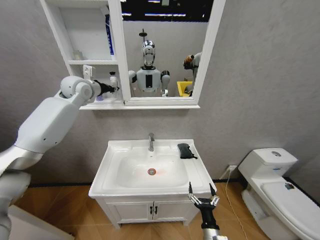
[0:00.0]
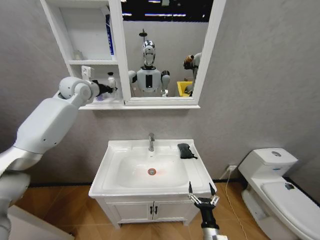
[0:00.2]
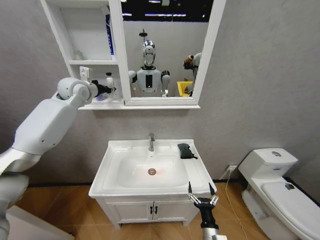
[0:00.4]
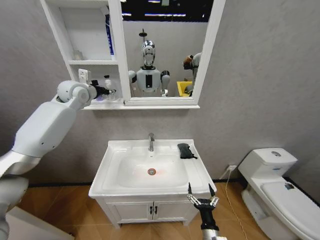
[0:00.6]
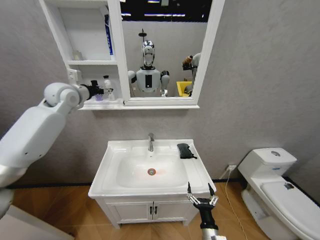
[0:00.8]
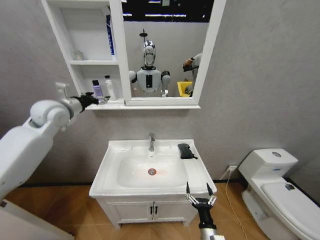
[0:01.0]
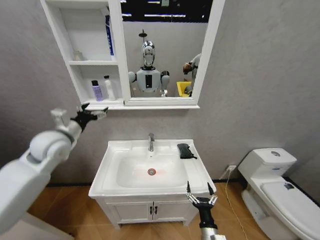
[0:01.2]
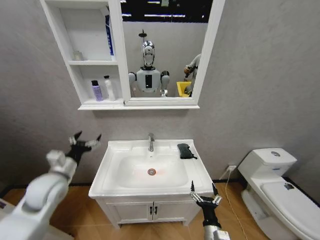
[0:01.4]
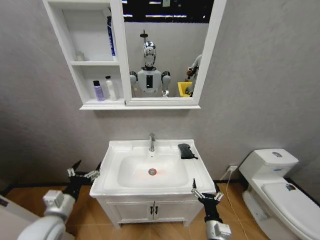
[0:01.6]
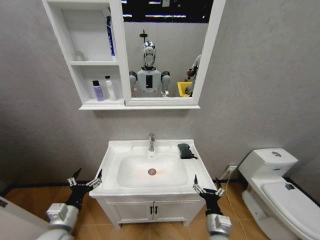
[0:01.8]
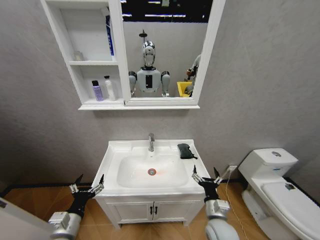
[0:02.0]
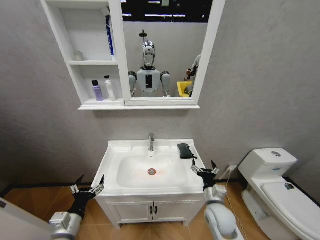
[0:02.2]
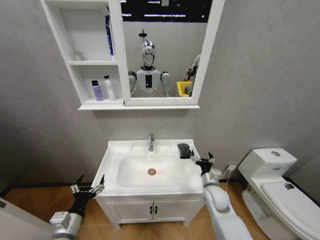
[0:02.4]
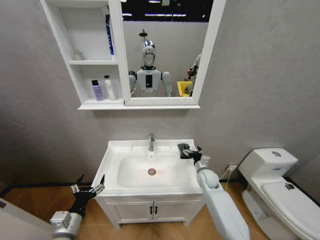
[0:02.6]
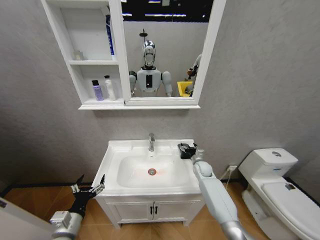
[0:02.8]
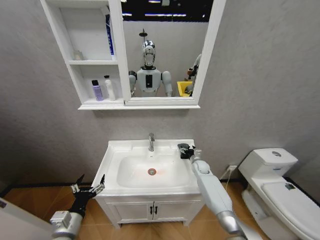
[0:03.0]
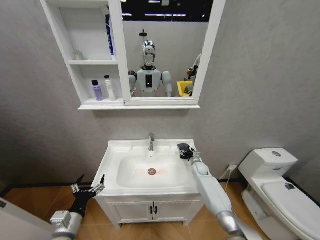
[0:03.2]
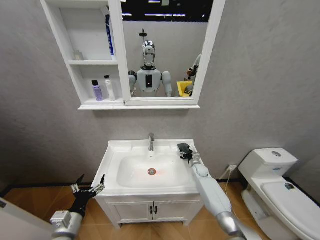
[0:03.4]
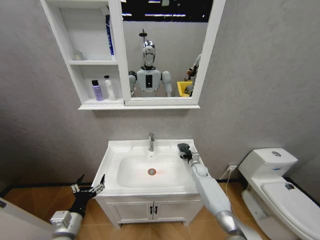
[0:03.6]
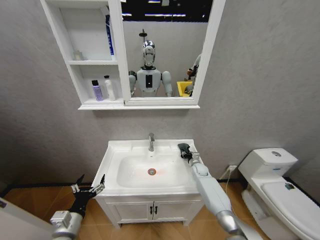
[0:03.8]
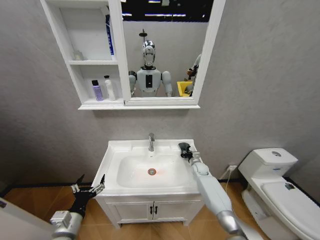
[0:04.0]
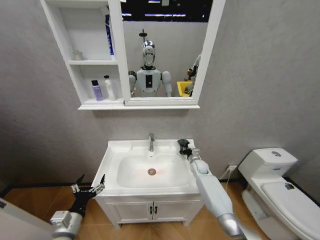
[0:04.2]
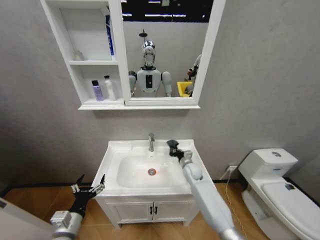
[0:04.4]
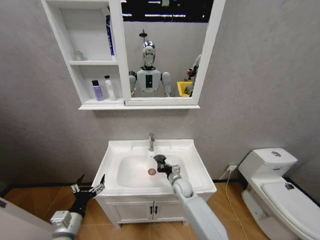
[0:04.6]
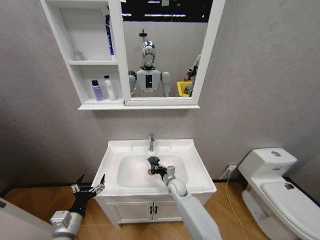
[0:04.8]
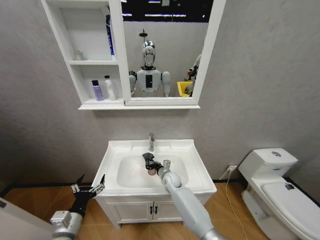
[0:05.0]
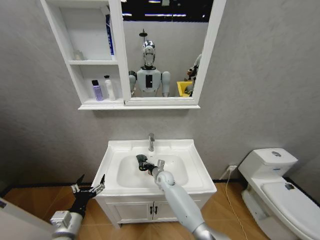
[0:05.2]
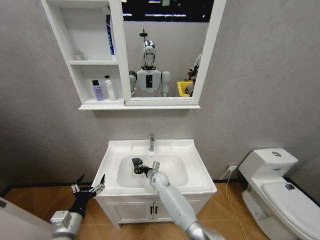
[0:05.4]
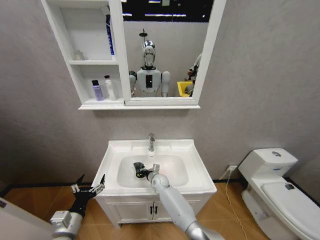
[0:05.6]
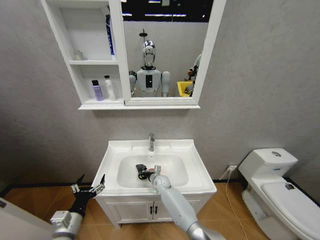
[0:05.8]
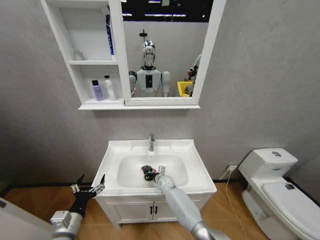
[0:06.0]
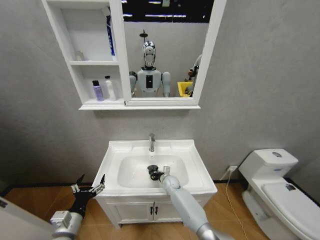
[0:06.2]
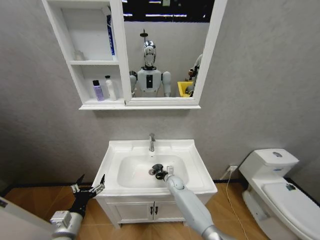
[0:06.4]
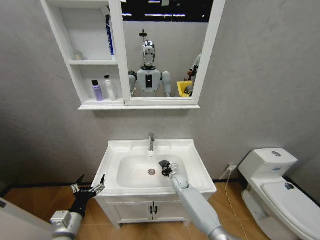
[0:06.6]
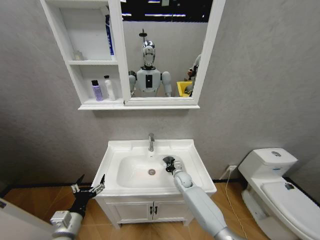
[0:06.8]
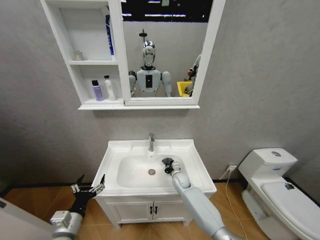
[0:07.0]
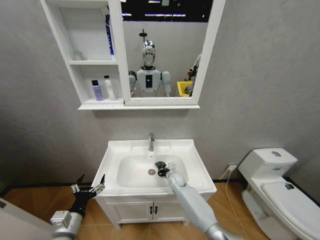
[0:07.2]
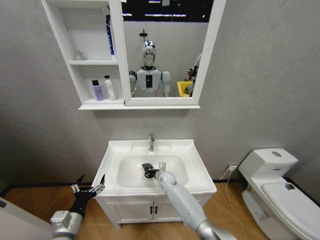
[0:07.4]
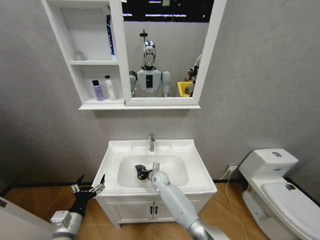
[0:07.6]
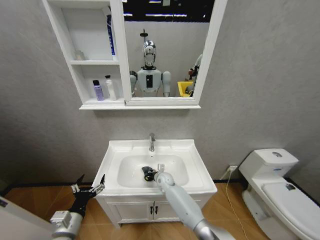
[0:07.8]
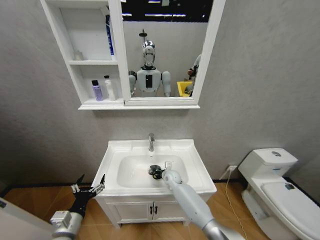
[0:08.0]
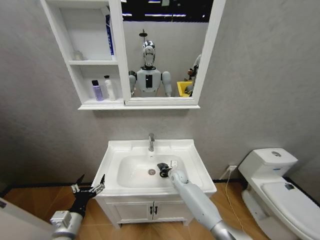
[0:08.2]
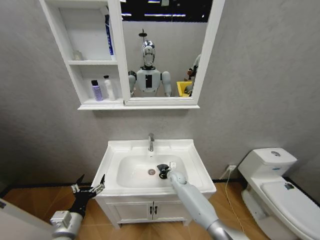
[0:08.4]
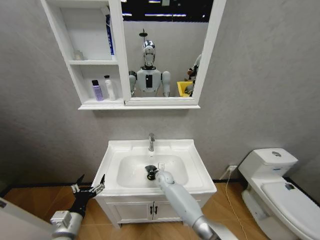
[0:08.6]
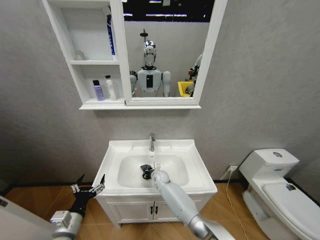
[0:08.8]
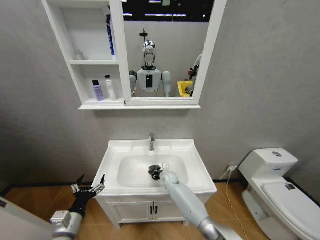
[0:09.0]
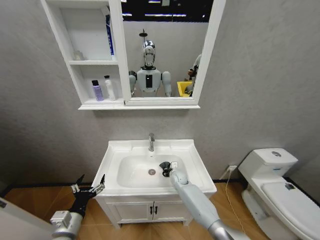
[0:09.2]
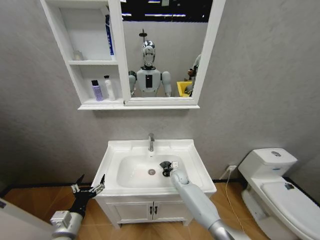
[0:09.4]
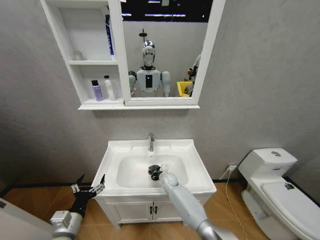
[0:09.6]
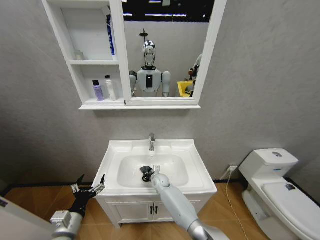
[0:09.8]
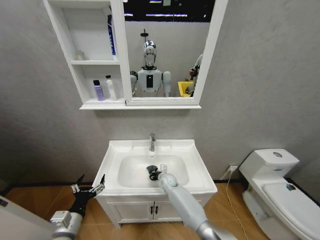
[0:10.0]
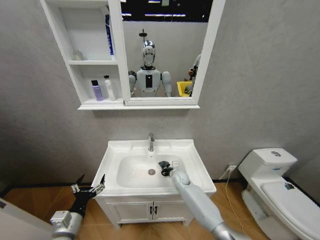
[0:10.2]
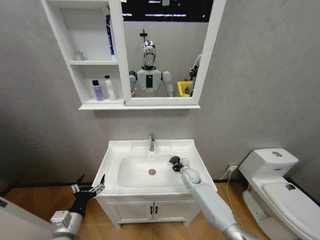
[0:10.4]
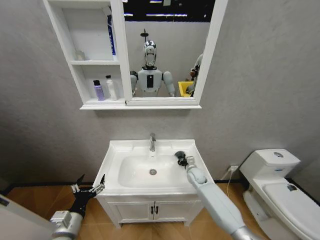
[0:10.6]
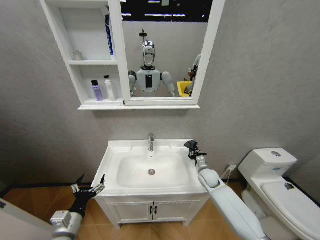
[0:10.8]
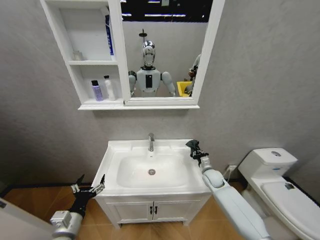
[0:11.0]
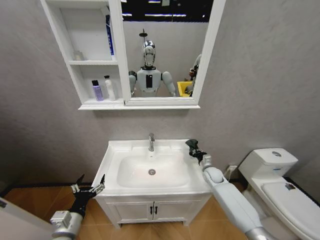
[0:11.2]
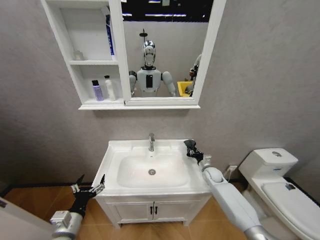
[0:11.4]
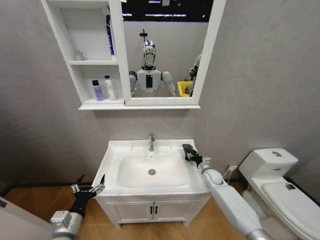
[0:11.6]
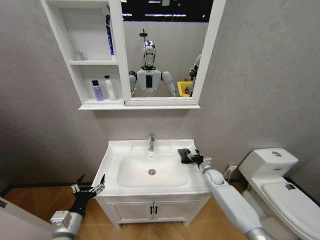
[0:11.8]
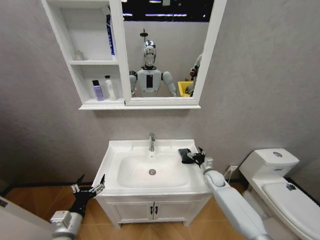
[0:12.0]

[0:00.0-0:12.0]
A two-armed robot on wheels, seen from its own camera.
Task of the whole recording: Move facial cleanser and shampoo from washbasin to cabinet, then wipe washbasin with towel.
0:00.0 to 0:01.6: The left gripper moves downward and backward, some 50 cm, and opens up.
0:01.6 to 0:03.0: The right gripper travels forward by roughly 35 cm. The left gripper shifts about 10 cm downward and backward.
0:03.0 to 0:04.4: The right gripper is displaced to the left and backward by about 10 cm, and closes.
0:04.4 to 0:06.0: The right gripper goes some 15 cm to the left and downward.
0:06.0 to 0:07.6: The right gripper travels to the right and back again, about 10 cm each way.
0:07.6 to 0:09.0: The right gripper moves left and right over approximately 10 cm, changing direction 2 times.
0:09.0 to 0:10.4: The right gripper goes left and right, approximately 15 cm each way, reversing 2 times.
0:10.4 to 0:12.0: The right gripper is displaced to the right by about 15 cm, and opens its fingers.

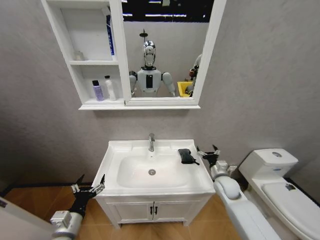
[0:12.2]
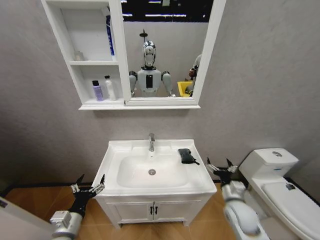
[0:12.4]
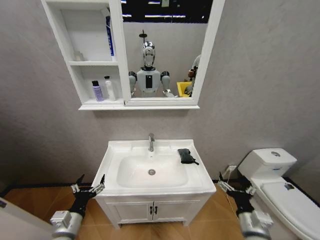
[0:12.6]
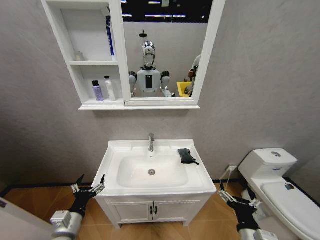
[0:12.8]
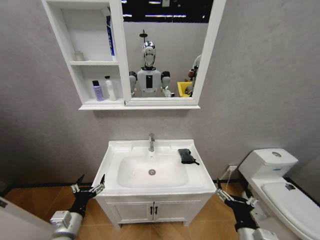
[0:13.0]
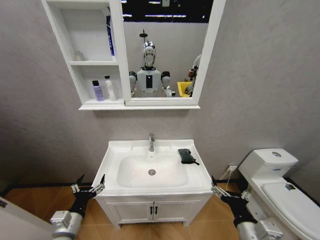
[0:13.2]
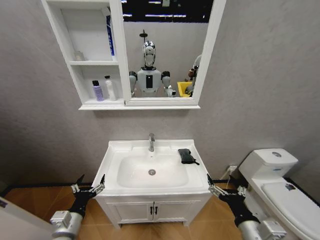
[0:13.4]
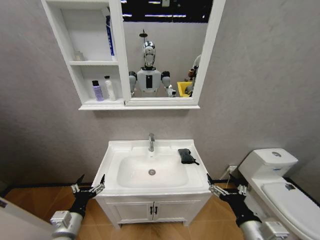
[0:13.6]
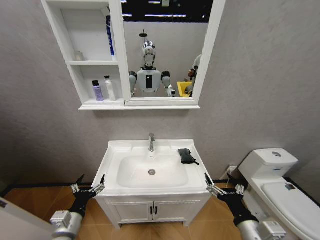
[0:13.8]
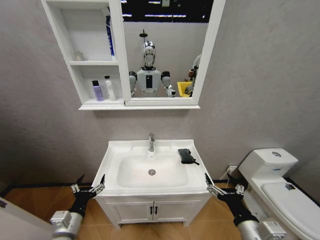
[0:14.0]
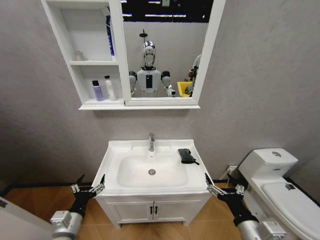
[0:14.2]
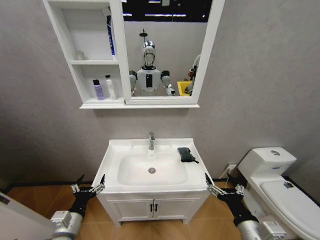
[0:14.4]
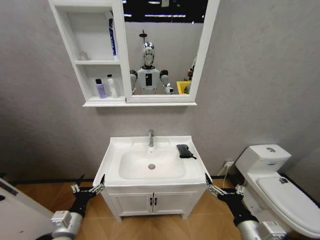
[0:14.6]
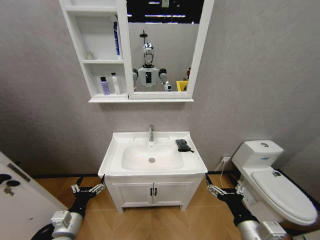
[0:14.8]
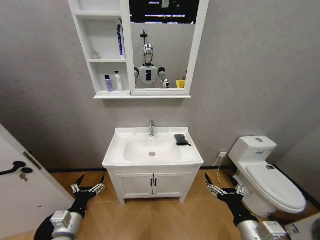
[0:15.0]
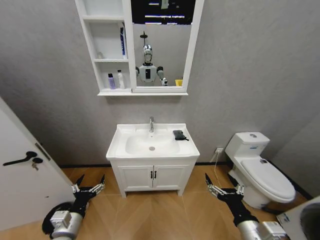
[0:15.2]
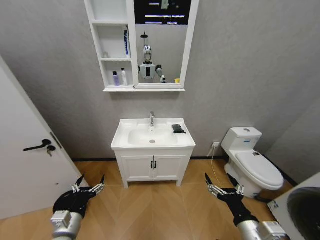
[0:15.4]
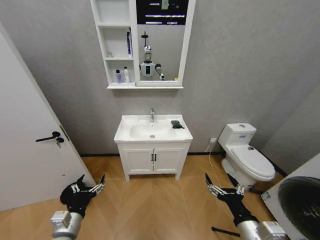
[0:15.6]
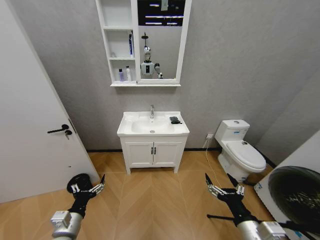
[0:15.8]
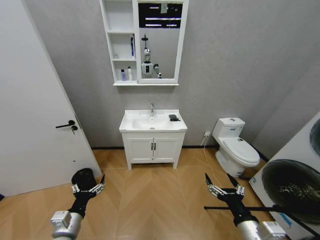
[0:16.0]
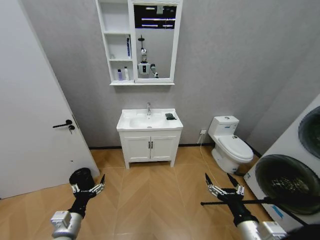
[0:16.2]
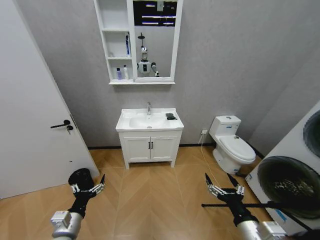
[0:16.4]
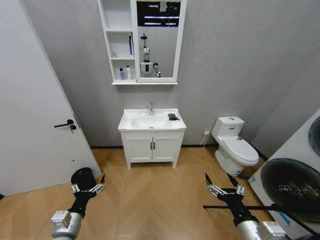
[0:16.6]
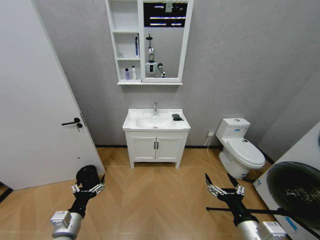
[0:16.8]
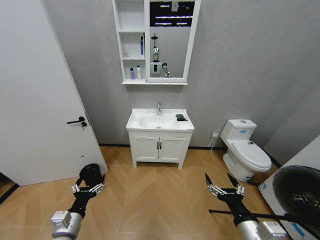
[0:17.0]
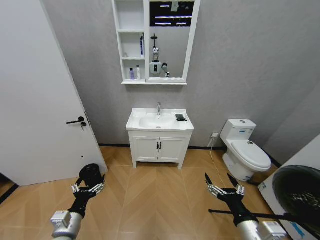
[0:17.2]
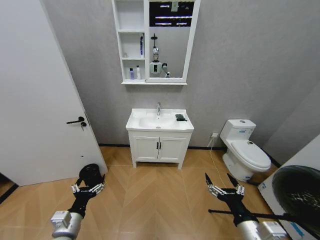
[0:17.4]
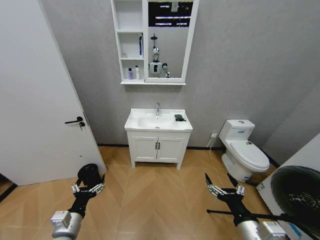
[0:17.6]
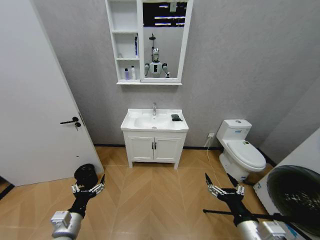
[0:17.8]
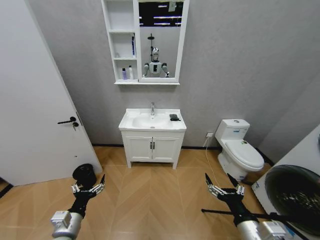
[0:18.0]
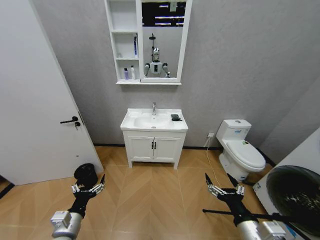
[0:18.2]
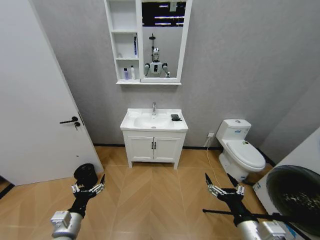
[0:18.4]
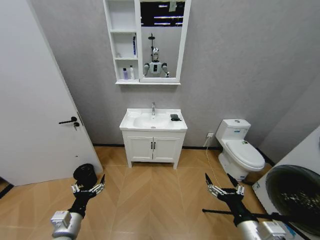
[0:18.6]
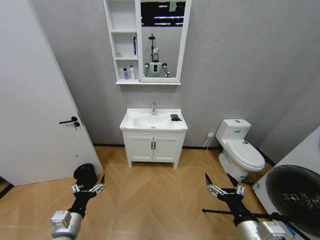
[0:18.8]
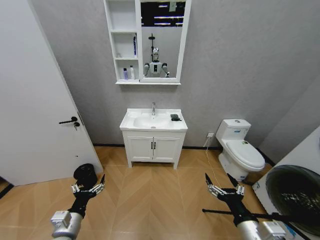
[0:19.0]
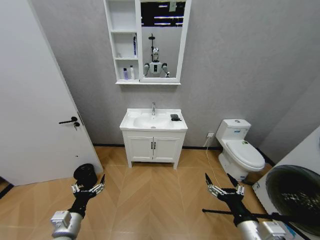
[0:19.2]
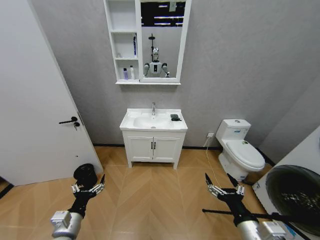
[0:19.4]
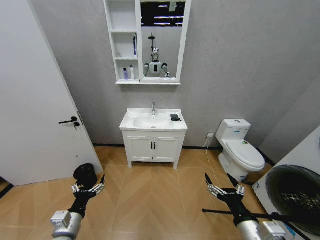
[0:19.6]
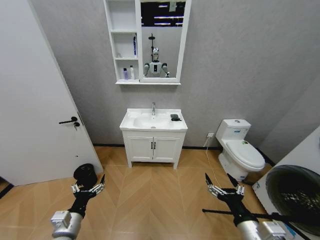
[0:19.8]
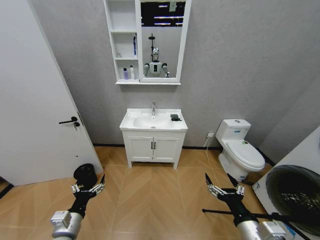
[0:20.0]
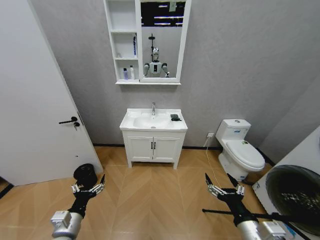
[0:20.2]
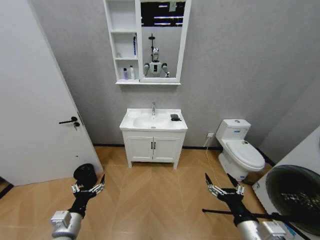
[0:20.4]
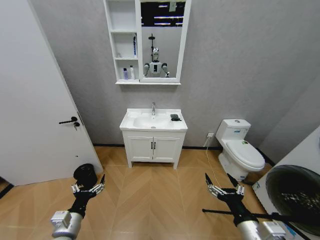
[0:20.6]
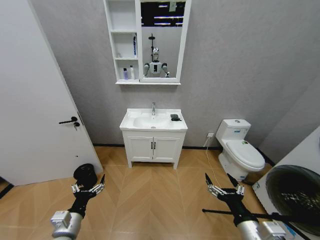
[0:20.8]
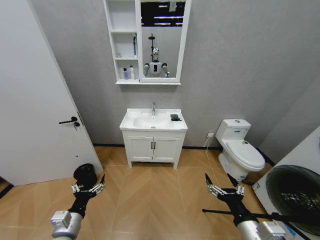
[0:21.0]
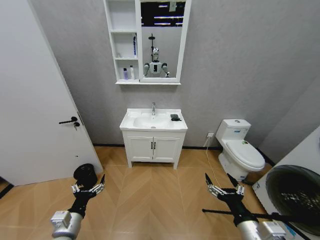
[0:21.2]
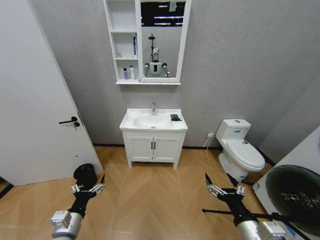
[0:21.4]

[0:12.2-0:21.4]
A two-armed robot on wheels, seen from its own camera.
Task of the whole recording: Move facial cleanser and shampoo from washbasin to cabinet, then wipe washbasin with towel.
0:12.2 to 0:13.8: The right gripper shifts roughly 25 cm backward.
0:16.8 to 0:21.4: Both grippers stay about where they are.

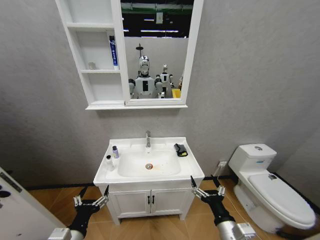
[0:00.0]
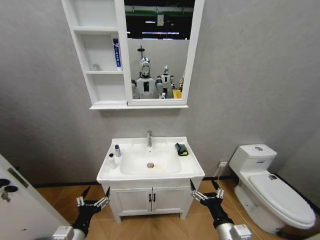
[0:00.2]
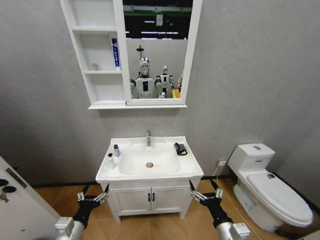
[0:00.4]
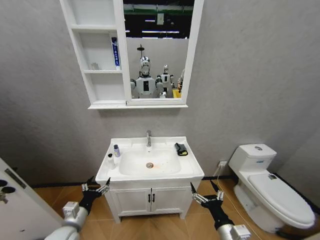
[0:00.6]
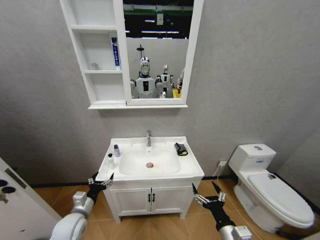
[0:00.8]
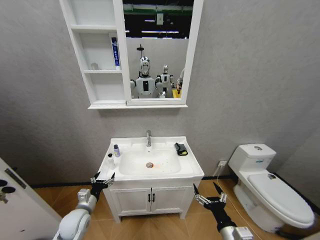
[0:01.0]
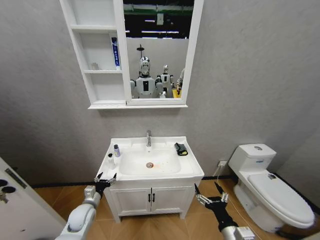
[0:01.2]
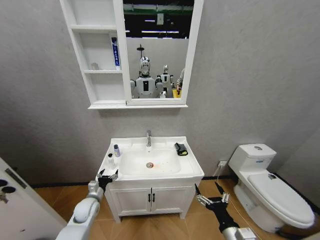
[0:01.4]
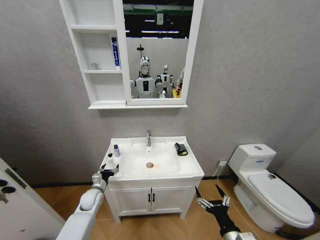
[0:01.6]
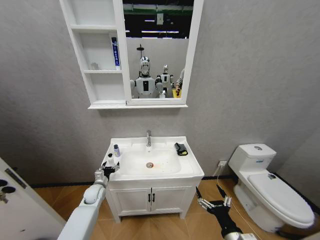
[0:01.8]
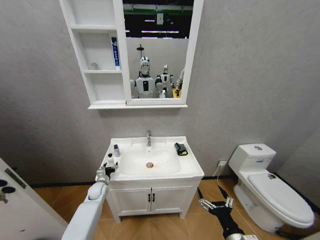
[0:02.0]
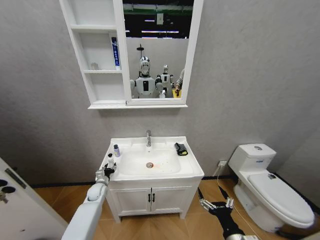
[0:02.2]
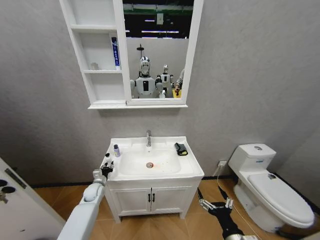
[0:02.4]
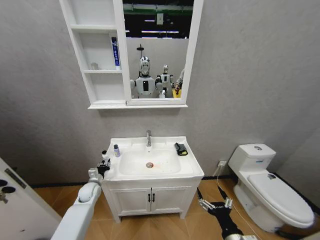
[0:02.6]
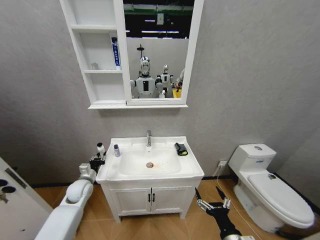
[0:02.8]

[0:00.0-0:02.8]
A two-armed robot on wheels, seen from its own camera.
Task of the whole recording: Move facial cleanser and shampoo from washbasin to cabinet, then wipe washbasin with towel.
0:00.0 to 0:01.4: The left gripper moves forward and downward, about 25 cm.
0:01.4 to 0:02.8: The left gripper travels upward and forward by about 10 cm, and closes.
